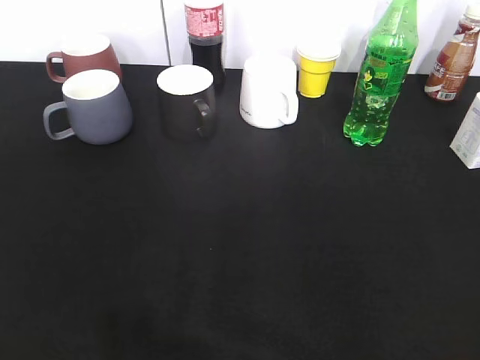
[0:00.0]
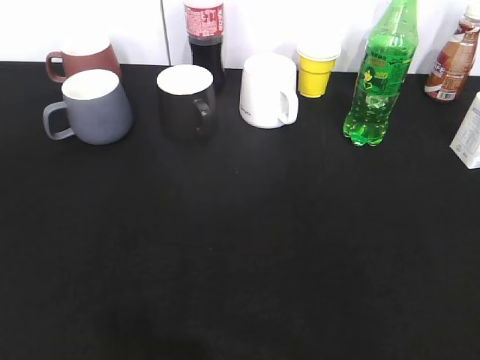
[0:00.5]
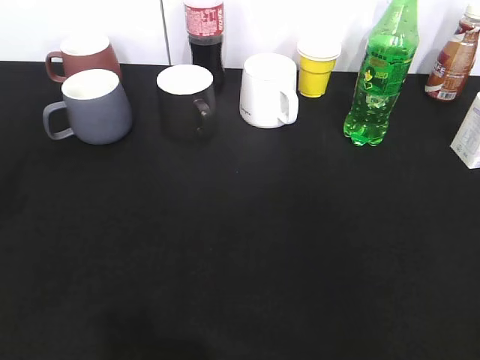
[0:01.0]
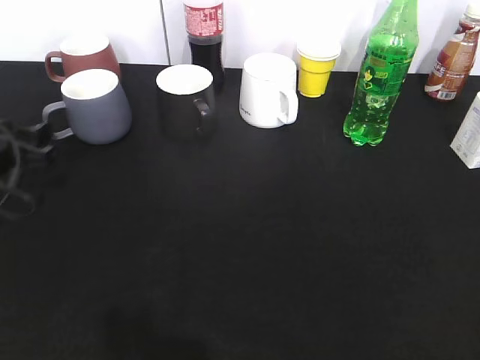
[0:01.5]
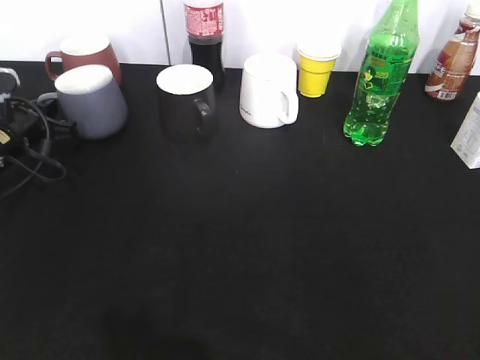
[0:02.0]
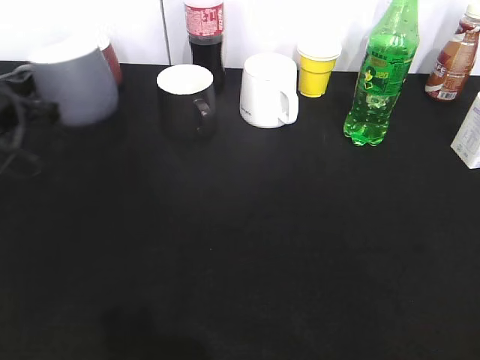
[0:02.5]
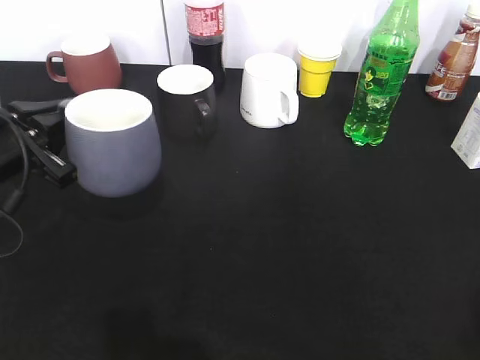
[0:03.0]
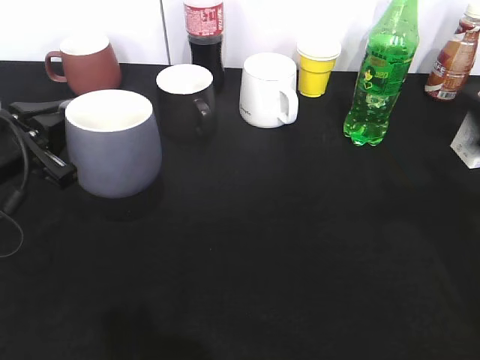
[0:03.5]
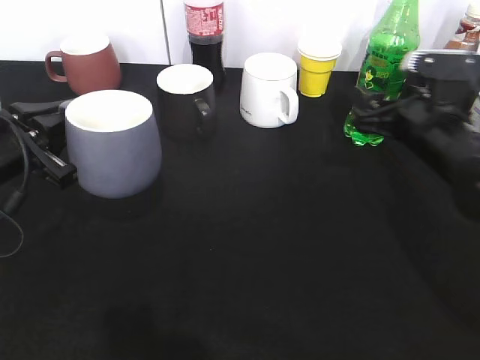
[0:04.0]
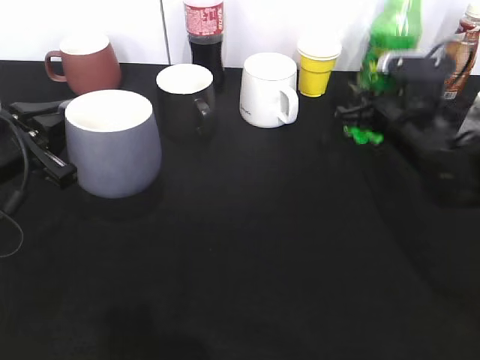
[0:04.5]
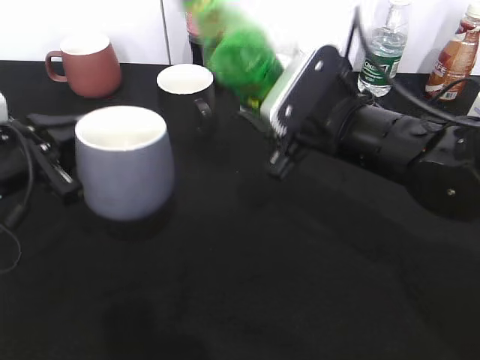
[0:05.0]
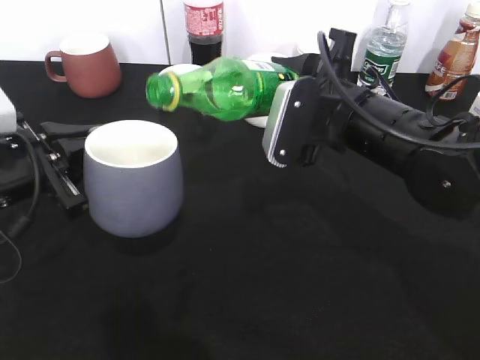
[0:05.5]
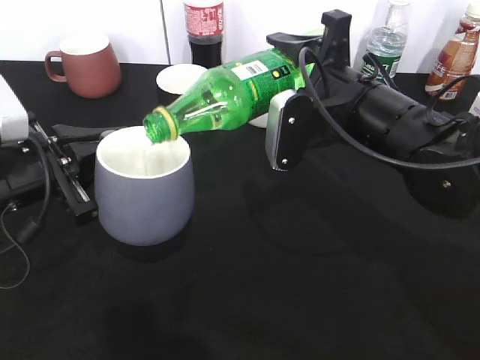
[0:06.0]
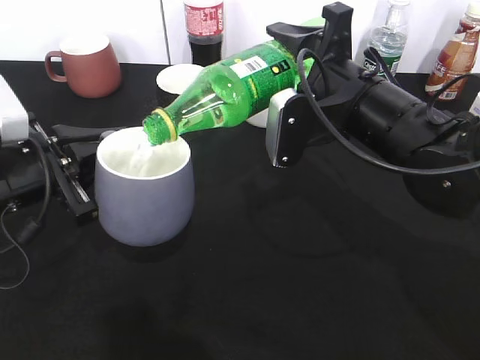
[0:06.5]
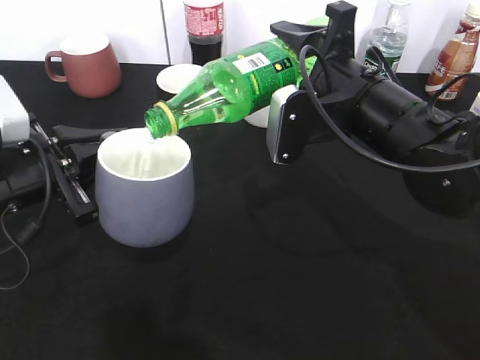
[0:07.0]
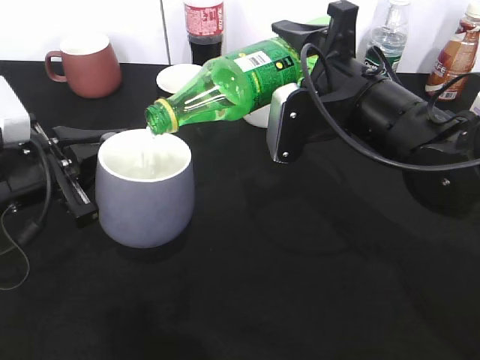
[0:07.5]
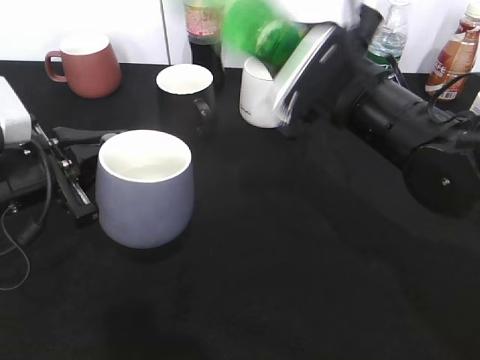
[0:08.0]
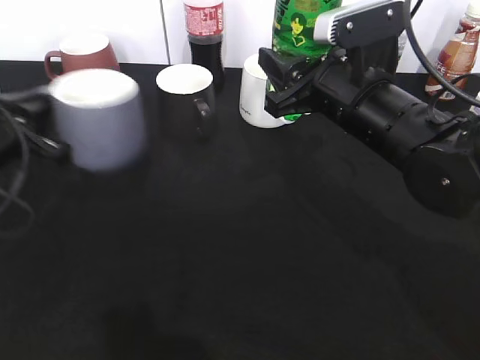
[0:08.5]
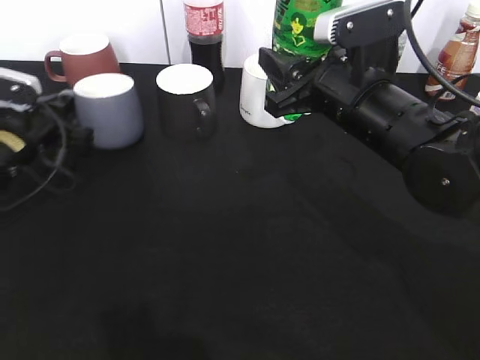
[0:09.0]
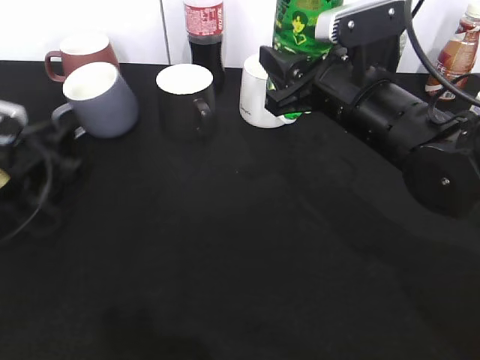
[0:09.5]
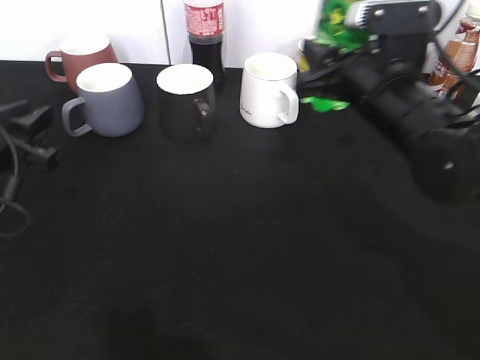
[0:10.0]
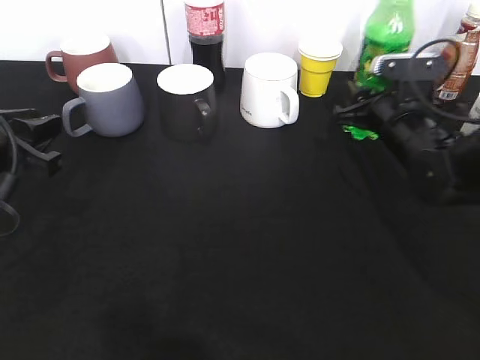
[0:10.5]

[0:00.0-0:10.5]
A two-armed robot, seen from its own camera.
Step, 0:00.0 to 0:02.0: Grasp the grey cup with left gripper.
Step, 0:02.5 to 0:03.0: Lift the grey cup with left gripper.
Step, 0:04.5 to 0:07.5: Pour the sprite from bottle to cup with right gripper.
0:00.0 to 0:02.0: The left gripper goes roughly 40 cm forward and downward, and closes its fingers.
0:02.0 to 0:04.0: The right gripper shifts about 35 cm forward. The left gripper travels backward and upward by some 10 cm.
0:04.0 to 0:06.5: The right gripper moves to the left and upward, about 10 cm, and closes.
0:08.5 to 0:10.5: The right gripper is displaced downward, to the right and forward by about 15 cm; the left gripper travels forward and back again, roughly 10 cm each way, and opens.

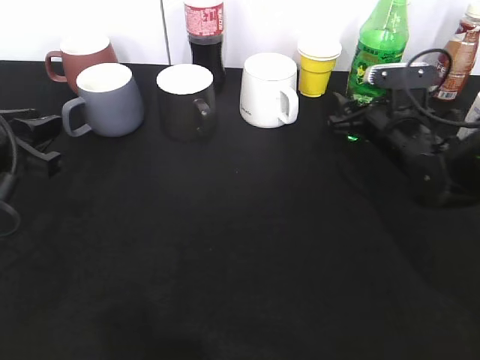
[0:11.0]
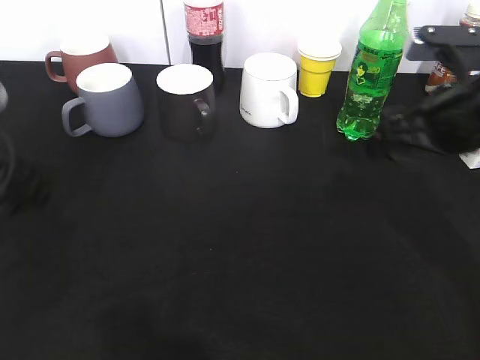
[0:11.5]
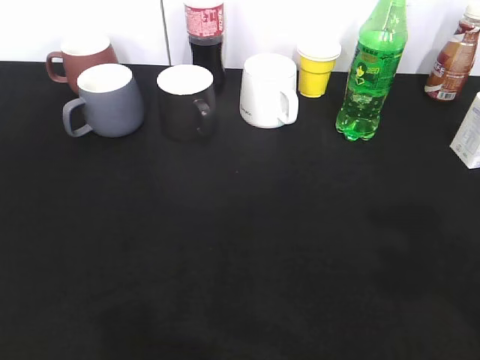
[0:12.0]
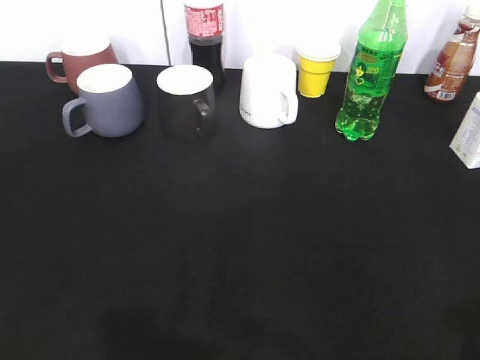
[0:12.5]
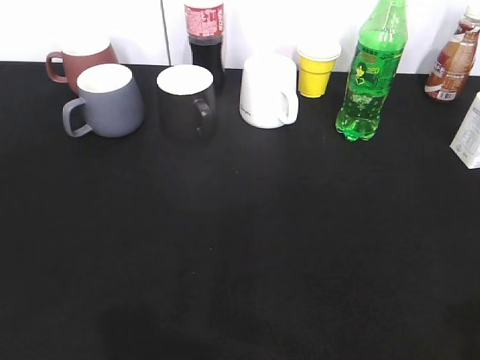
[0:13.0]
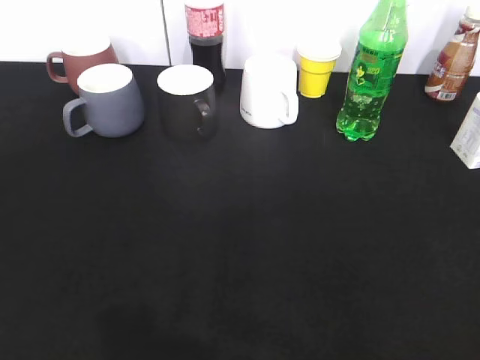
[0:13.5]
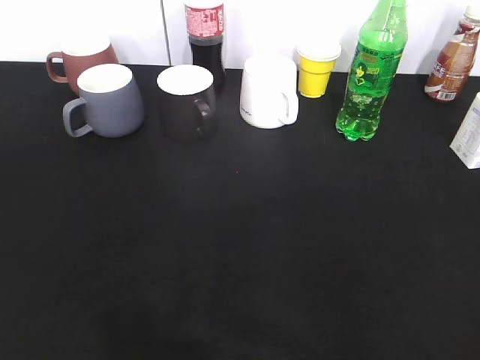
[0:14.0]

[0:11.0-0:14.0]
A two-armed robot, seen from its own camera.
0:11.0 to 0:12.5: The right gripper is displaced backward and upward by some 40 cm, while the left gripper goes roughly 25 cm backward.
